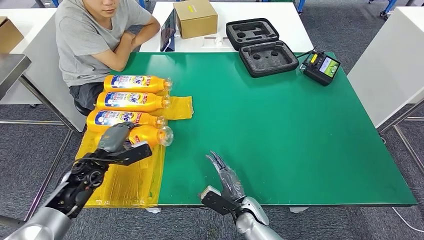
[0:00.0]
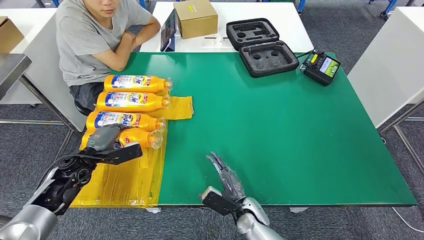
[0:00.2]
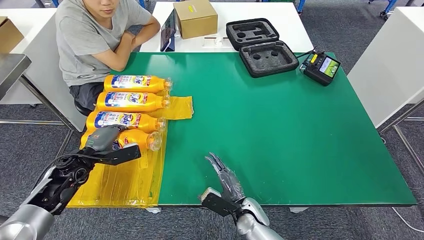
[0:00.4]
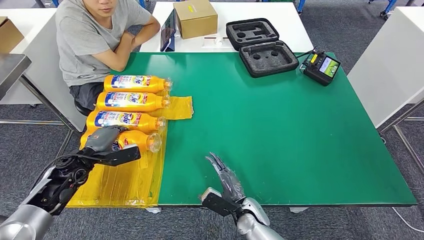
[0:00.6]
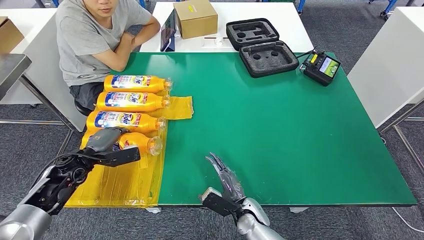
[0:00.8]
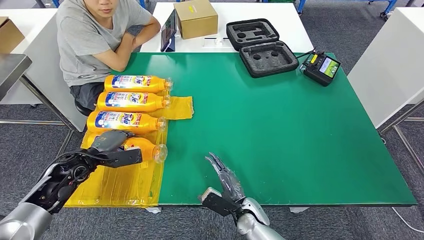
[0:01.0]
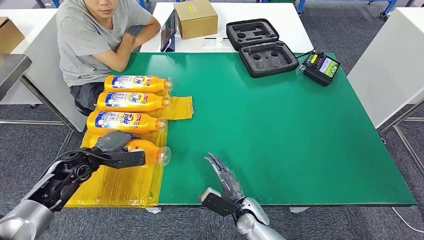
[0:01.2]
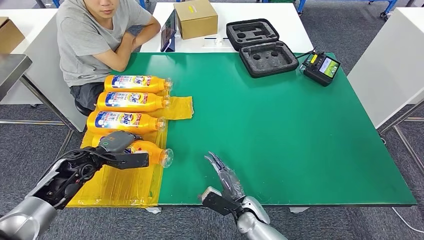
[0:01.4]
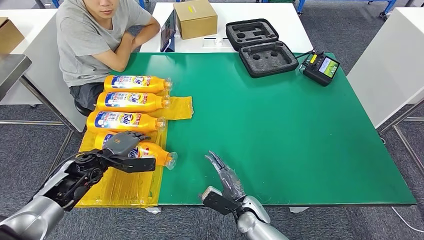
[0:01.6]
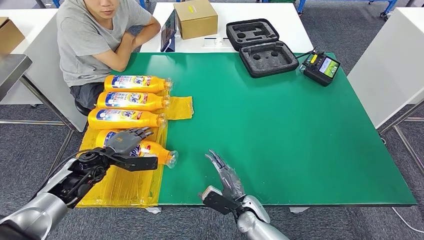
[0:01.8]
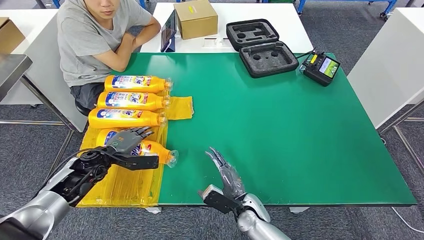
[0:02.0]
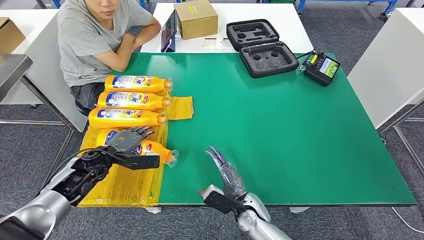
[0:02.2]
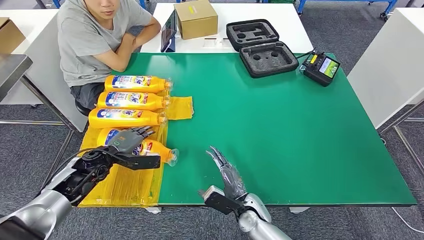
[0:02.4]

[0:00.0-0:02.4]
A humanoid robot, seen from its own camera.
Step, 0:00.0 to 0:02.2: Flip the fast-moving consumer goods bottle to the front side.
0:01.2 to 0:02.4: The hands stay close to where they were, moving slightly.
